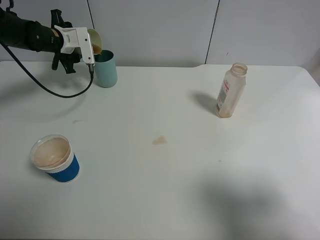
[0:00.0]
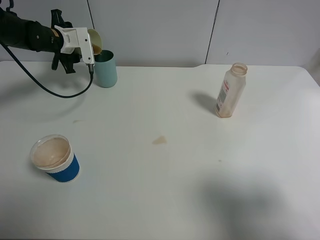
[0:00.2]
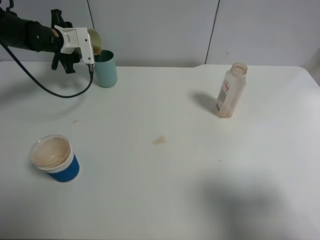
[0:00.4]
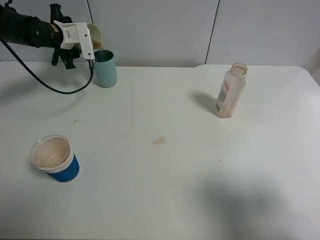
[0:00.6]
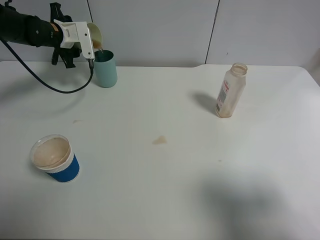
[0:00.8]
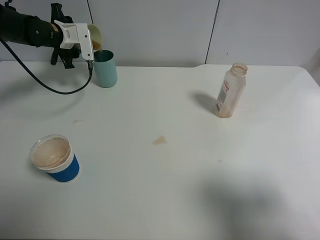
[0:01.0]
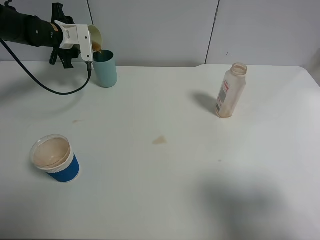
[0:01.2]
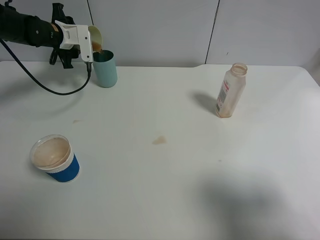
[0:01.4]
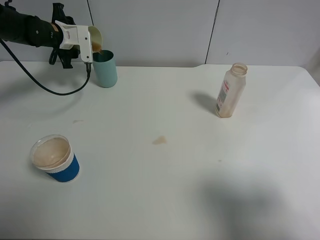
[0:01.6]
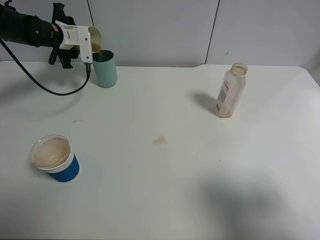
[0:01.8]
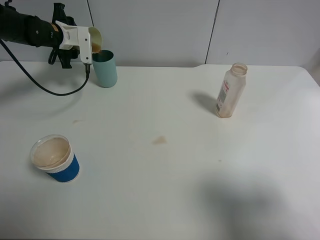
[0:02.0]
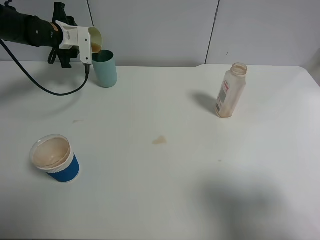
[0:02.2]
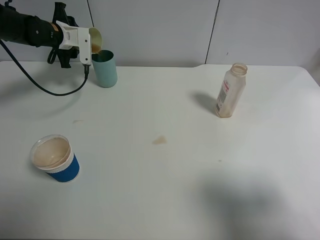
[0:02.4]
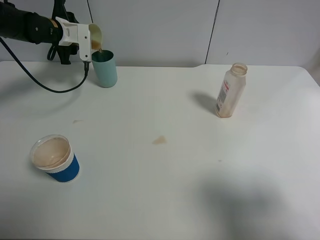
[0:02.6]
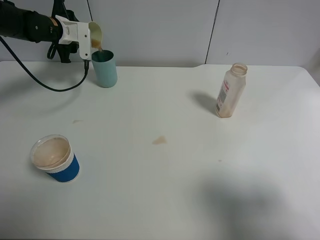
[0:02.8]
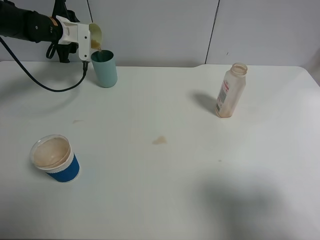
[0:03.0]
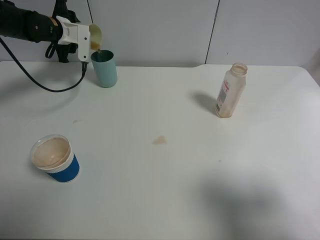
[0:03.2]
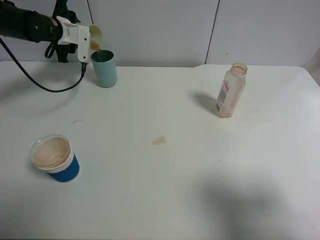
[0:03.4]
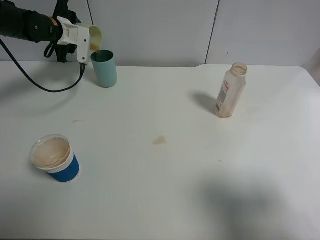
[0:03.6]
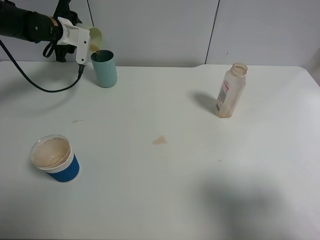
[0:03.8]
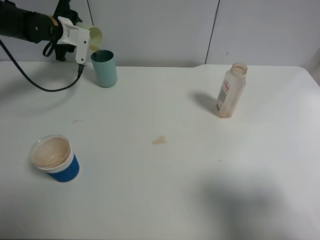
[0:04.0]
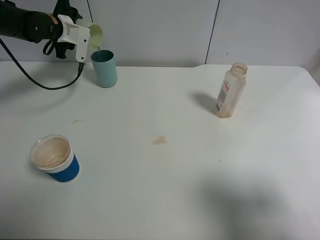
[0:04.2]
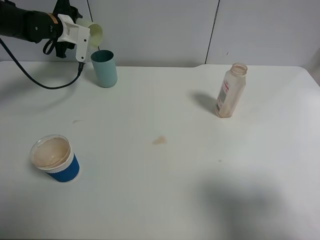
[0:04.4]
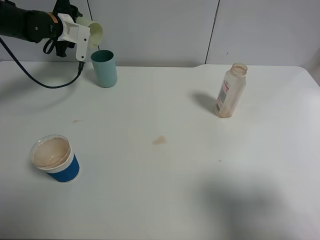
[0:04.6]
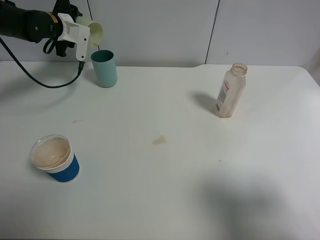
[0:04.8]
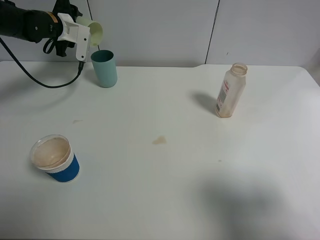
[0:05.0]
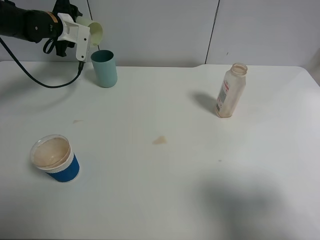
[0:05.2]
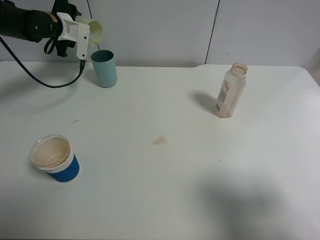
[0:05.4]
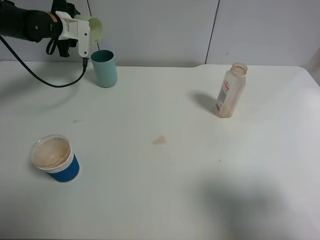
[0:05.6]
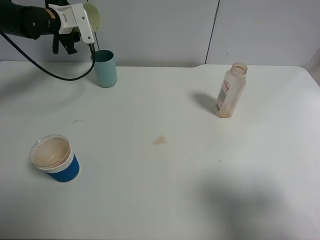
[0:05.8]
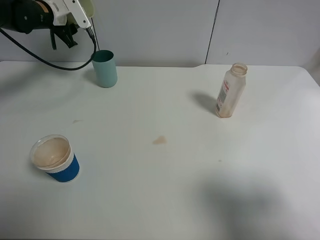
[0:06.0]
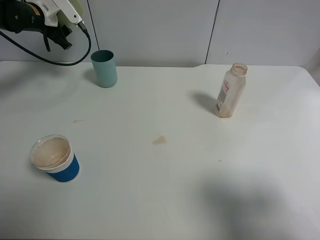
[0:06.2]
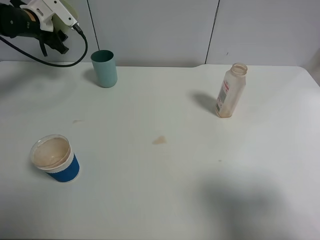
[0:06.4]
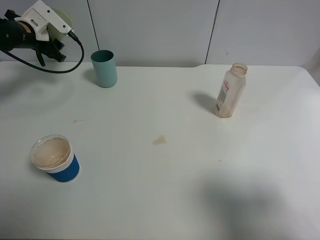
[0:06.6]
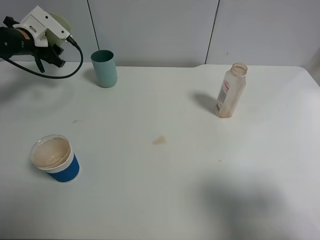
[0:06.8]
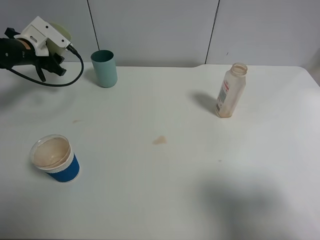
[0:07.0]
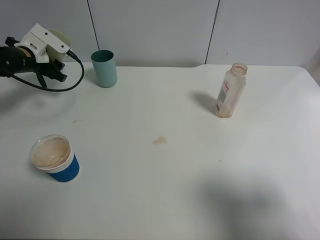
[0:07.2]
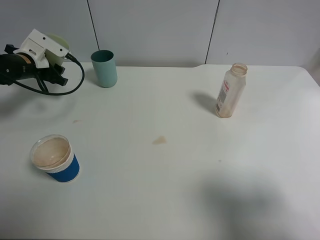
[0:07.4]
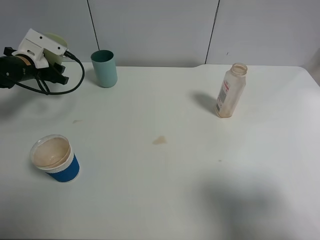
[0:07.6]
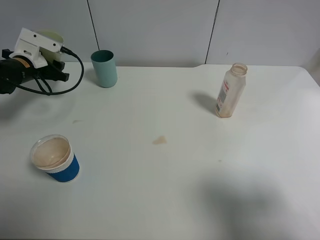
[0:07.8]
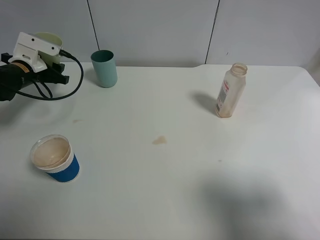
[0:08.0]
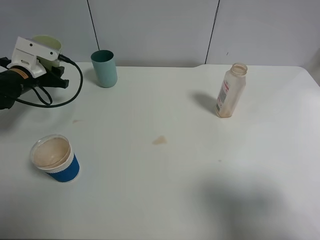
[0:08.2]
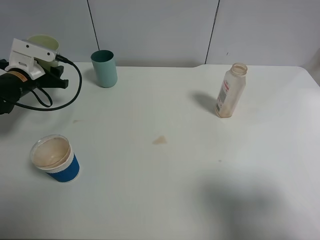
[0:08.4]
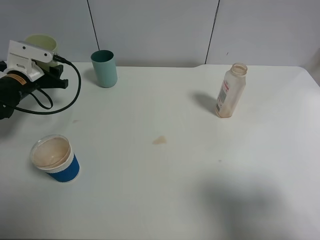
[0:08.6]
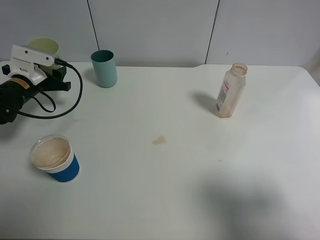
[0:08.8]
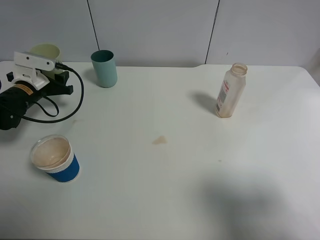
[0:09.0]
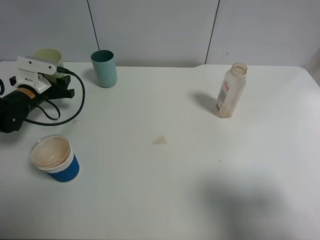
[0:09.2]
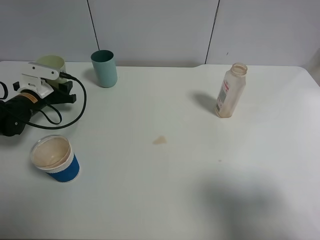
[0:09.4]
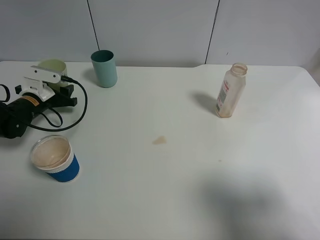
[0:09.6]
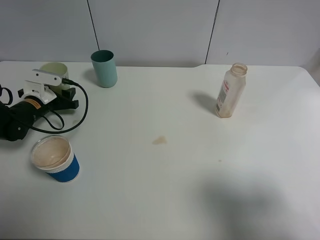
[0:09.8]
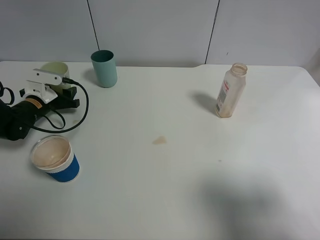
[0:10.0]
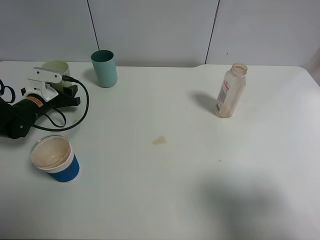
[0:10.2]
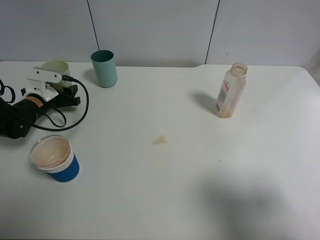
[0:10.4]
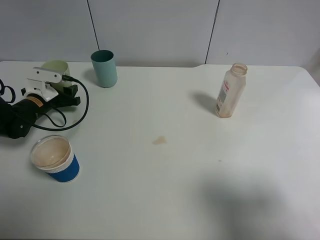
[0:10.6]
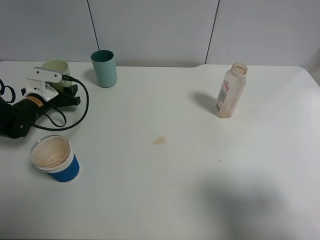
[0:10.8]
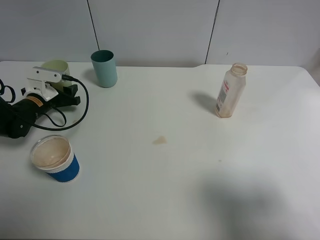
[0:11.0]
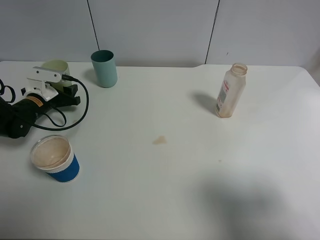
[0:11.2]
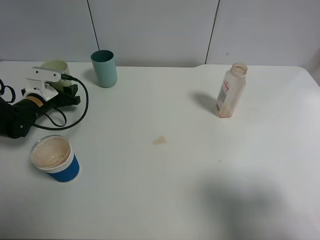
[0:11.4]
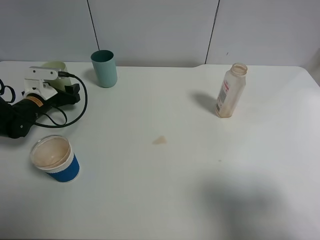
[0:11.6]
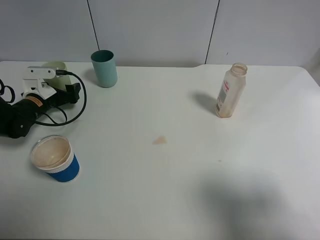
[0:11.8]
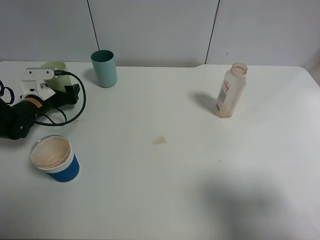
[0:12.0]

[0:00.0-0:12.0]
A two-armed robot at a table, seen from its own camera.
Task of the whole recording: use a clamp to hold the bottle of the drink, pour the beverage into a random cup, then clamp the cup containing the drink and pour the drink into another random cup.
Step, 0:00.0 to 0:06.2: Pour the drink into the blue plastic cup with left gripper.
0:00.0 to 0:03.0: The grippers stay close to where they were, moving slightly.
0:03.0 to 0:04.4: There are only small adjustments of the grippers.
0:06.0 to 0:07.6: The left gripper travels downward, backward and to the left by some 15 cm.
0:07.6 to 0:09.0: The left gripper shifts by approximately 5 cm.
0:09.0 to 0:10.4: The grippers make only small movements.
0:10.4 to 0:12.0: The left gripper opens up.

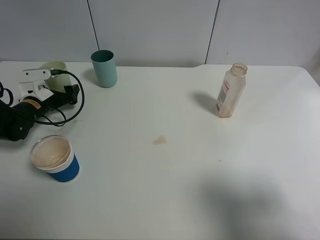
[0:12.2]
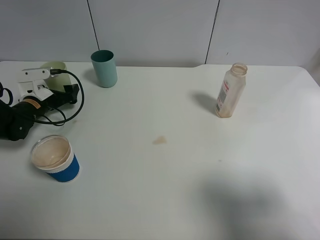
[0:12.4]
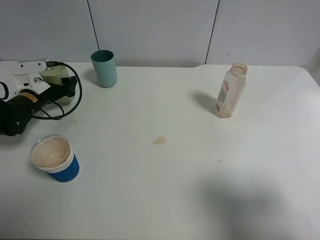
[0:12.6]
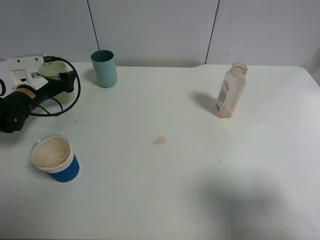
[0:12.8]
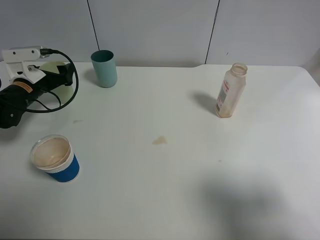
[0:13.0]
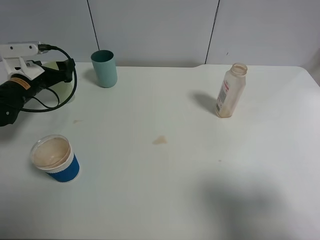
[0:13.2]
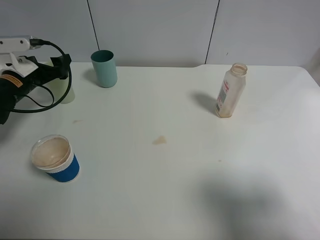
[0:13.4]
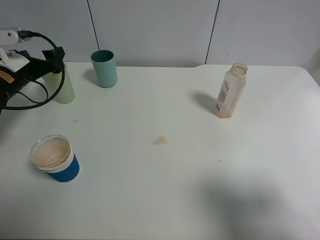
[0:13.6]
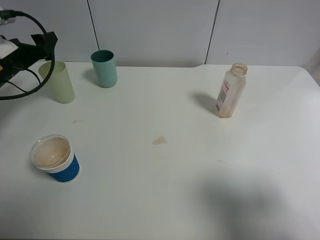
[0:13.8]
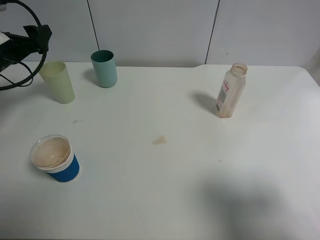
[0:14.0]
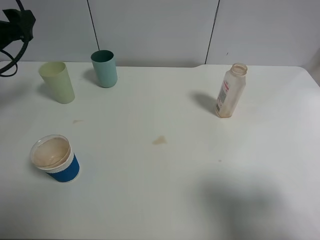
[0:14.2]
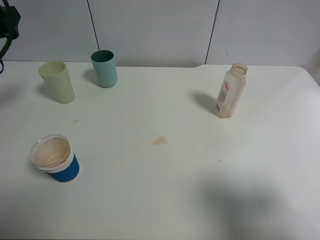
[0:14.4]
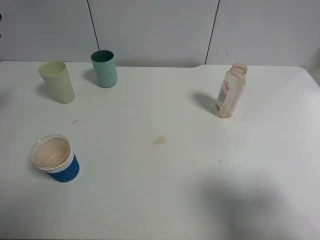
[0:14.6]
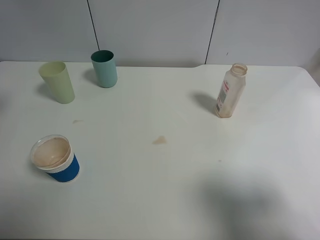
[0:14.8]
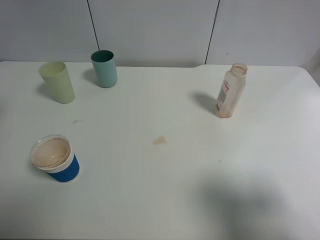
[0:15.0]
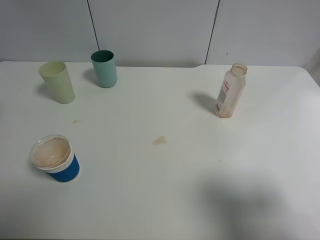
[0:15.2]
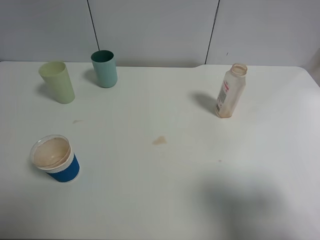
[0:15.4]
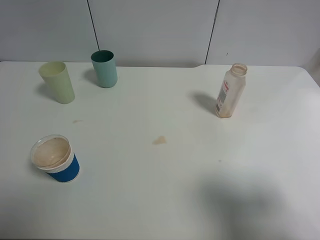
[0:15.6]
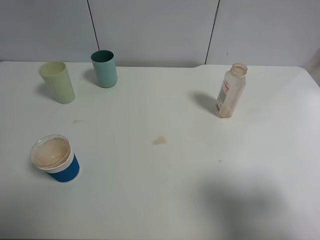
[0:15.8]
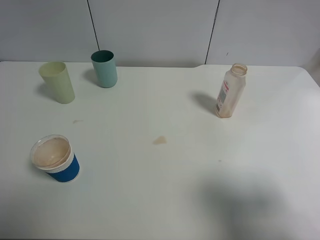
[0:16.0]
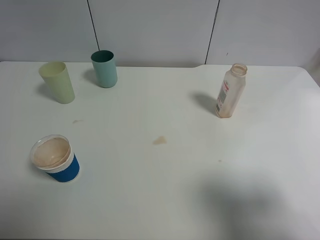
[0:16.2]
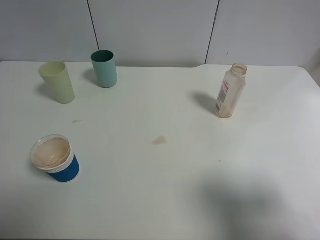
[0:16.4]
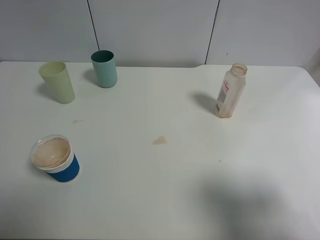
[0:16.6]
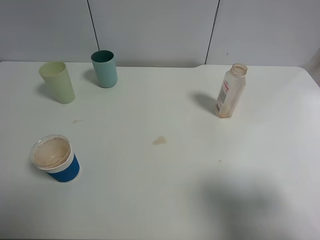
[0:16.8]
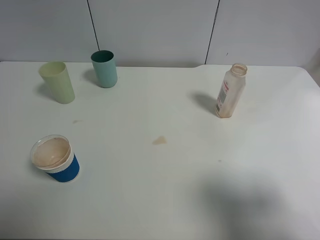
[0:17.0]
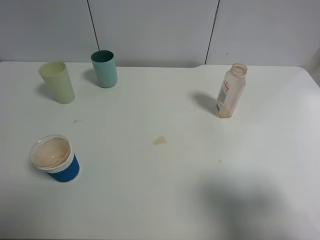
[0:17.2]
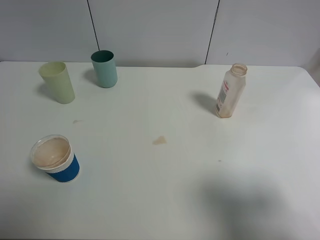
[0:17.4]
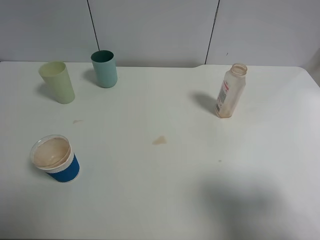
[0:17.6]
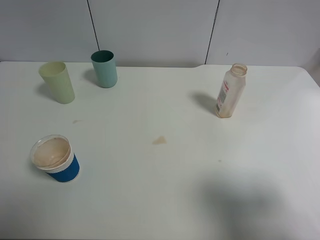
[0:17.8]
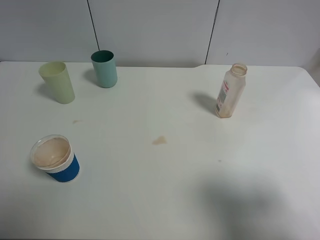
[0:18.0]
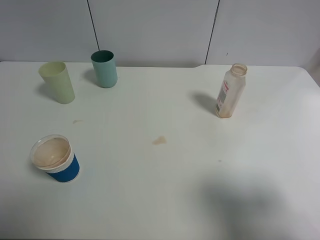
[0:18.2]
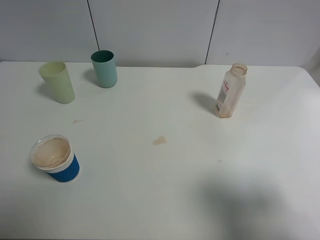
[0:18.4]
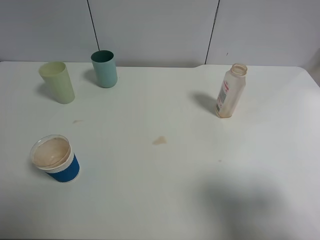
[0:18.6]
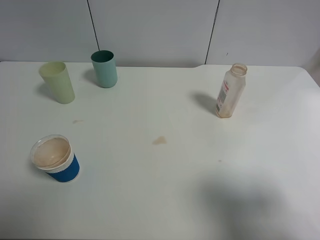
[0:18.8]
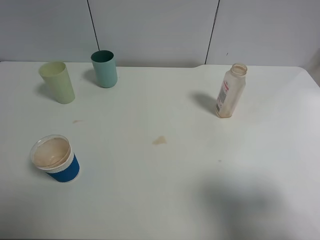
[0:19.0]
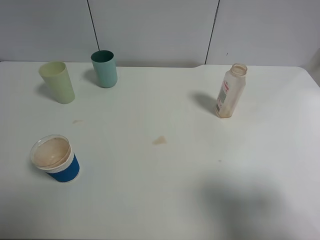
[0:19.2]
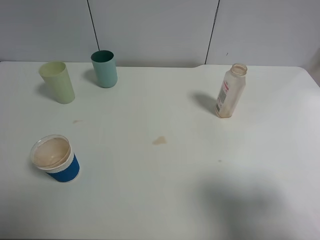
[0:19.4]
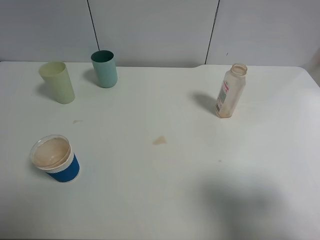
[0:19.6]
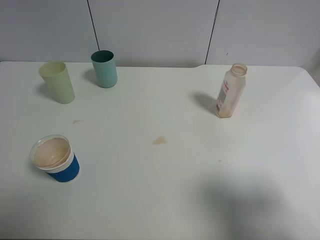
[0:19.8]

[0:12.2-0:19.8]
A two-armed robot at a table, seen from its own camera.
Task of the whole recording: use a clamp to hold the bottle of the drink, pour the beverage into a random cup, then clamp the cup containing the drink and pour the drink into another random cup.
0:12.2 to 0:13.8: The left gripper moves upward, about 10 cm.
0:13.8 to 0:15.2: The left gripper heads backward and upward, covering roughly 20 cm.
